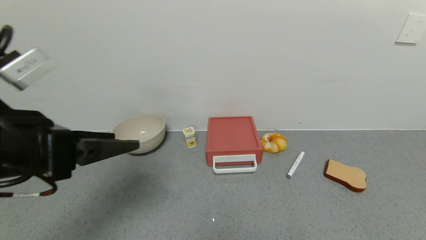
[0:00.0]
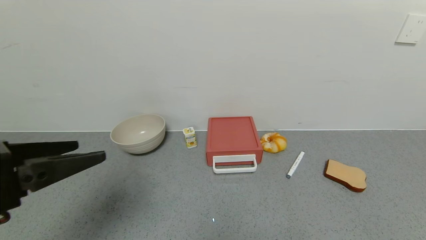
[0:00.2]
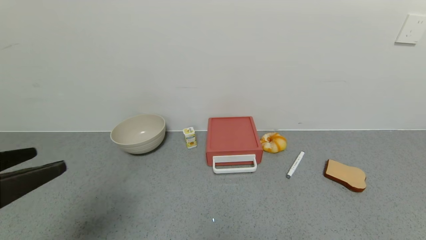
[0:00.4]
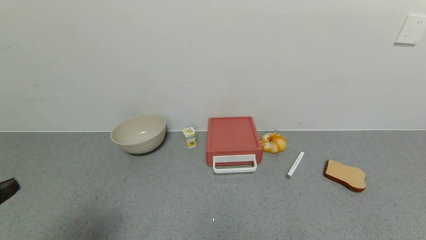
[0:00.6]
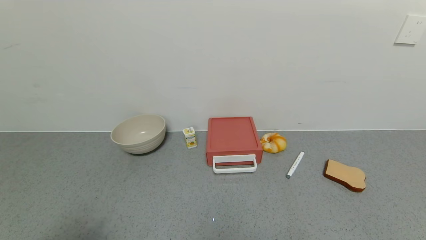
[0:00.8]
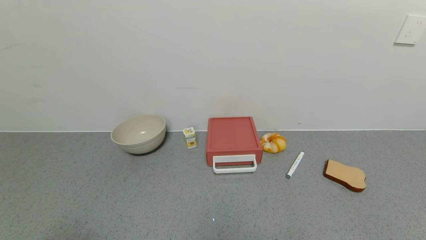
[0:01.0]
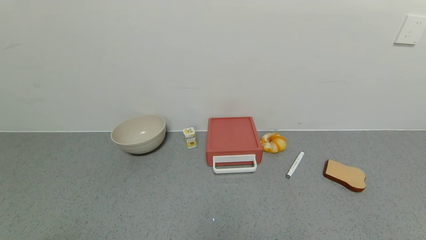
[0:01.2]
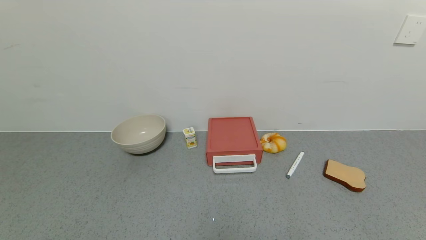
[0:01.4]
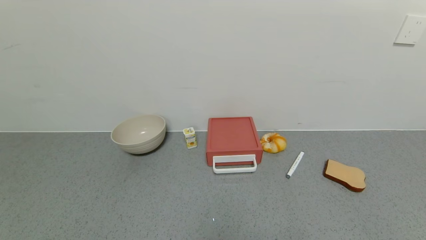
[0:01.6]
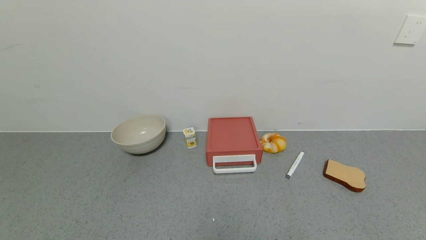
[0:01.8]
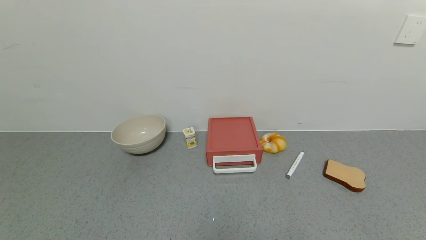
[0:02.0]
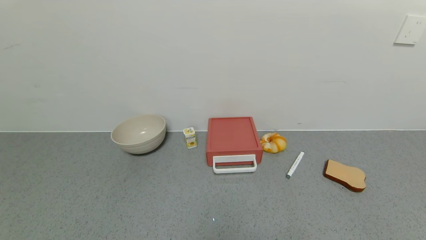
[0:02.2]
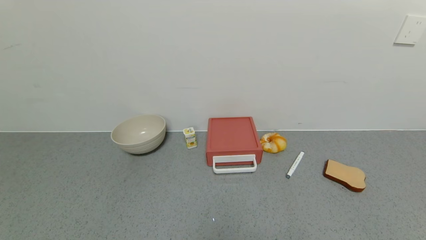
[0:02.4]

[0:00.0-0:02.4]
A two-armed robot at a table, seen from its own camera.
Task of the whole recording: use the gripper to open the drawer and close the red drawer.
0:00.0 to 0:01.2: The left gripper goes about 20 cm backward.

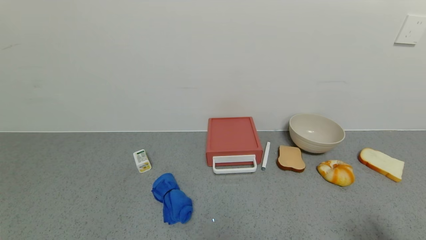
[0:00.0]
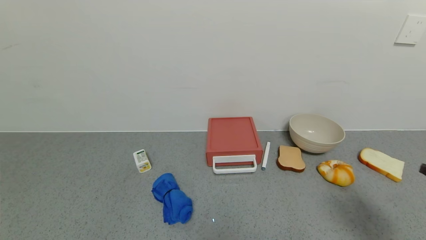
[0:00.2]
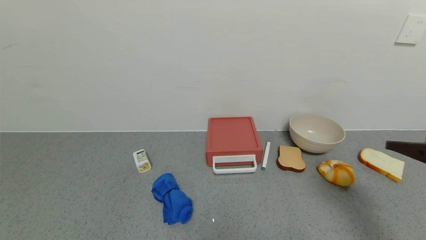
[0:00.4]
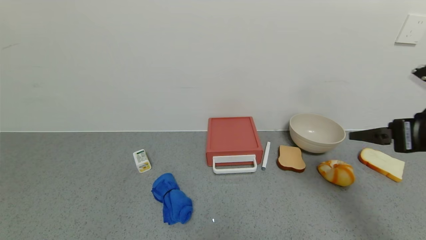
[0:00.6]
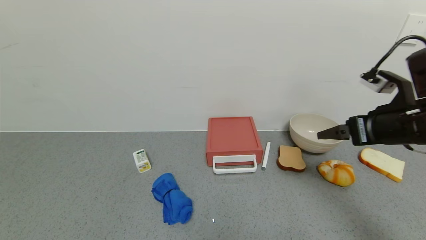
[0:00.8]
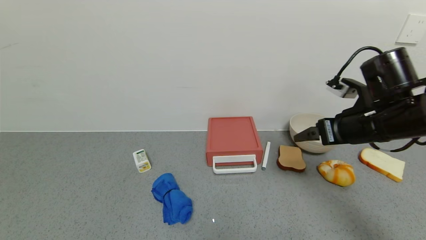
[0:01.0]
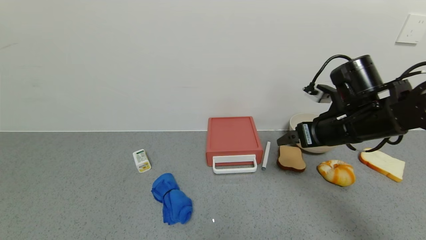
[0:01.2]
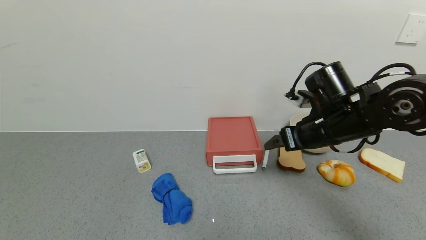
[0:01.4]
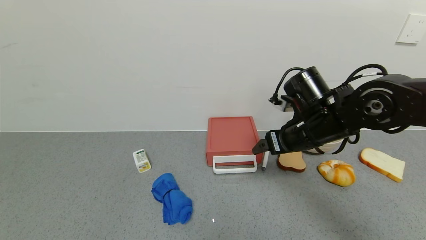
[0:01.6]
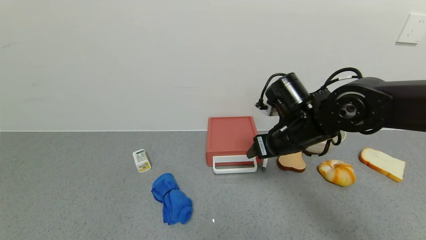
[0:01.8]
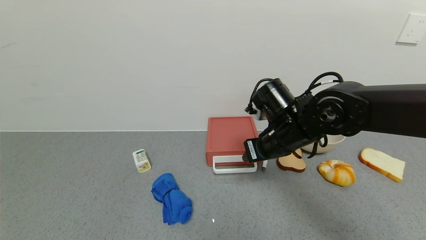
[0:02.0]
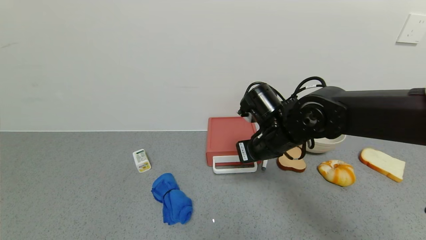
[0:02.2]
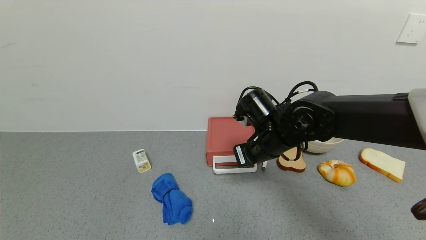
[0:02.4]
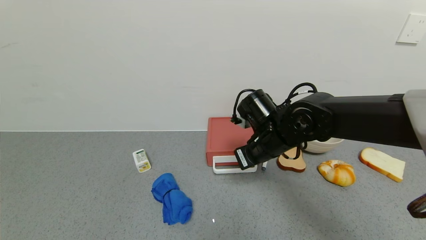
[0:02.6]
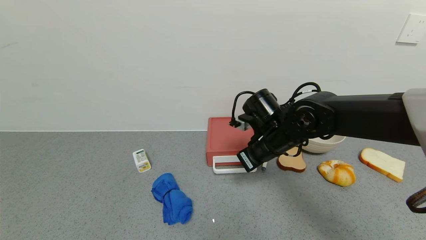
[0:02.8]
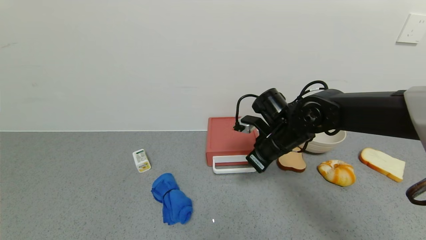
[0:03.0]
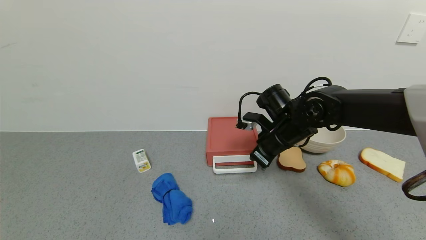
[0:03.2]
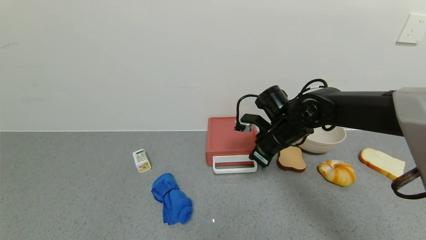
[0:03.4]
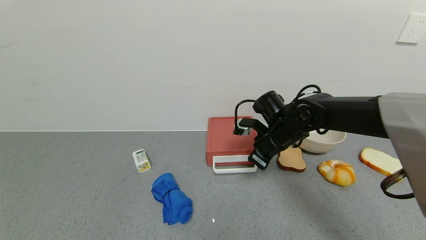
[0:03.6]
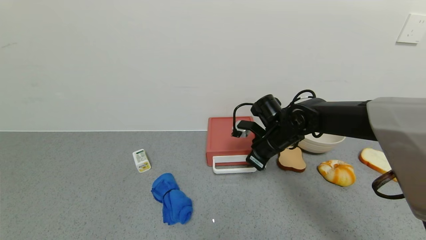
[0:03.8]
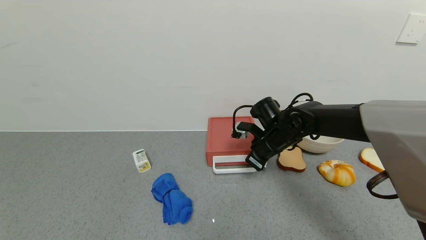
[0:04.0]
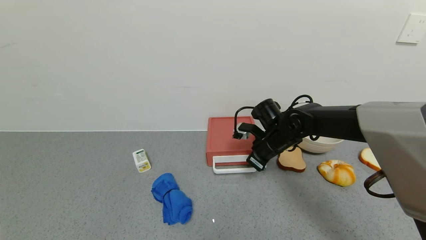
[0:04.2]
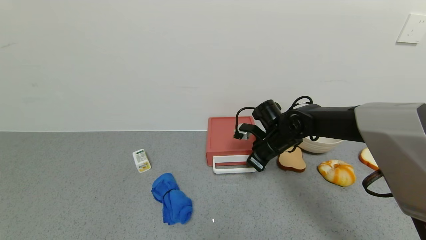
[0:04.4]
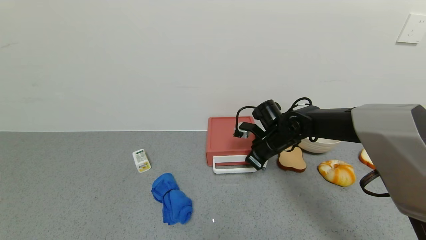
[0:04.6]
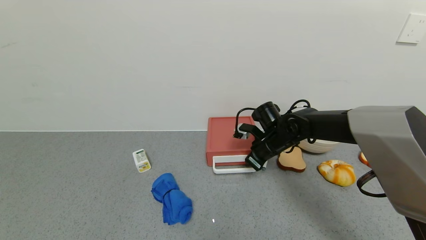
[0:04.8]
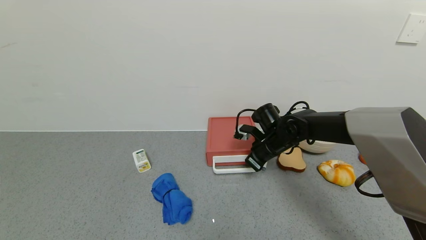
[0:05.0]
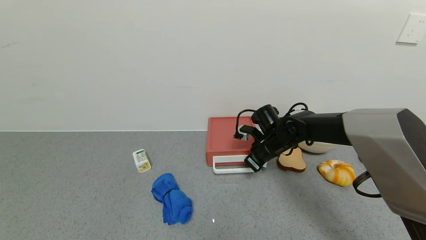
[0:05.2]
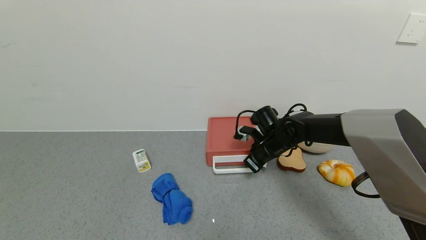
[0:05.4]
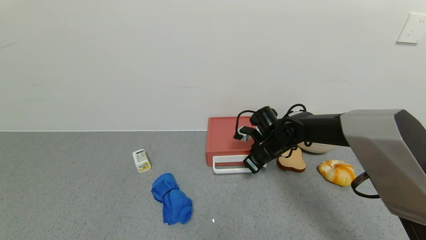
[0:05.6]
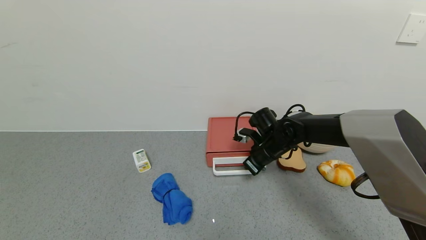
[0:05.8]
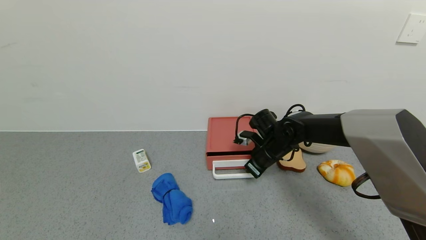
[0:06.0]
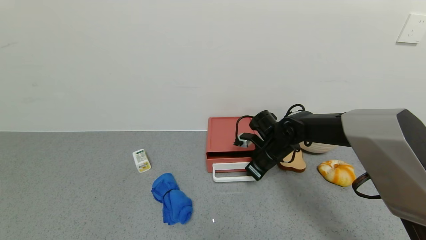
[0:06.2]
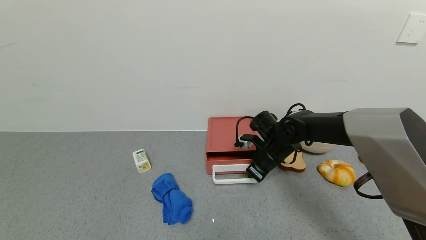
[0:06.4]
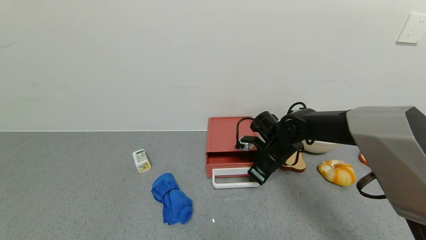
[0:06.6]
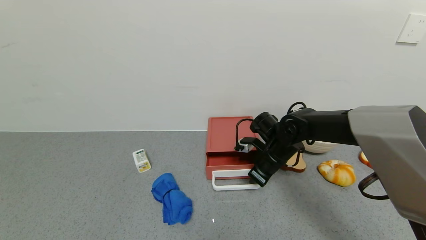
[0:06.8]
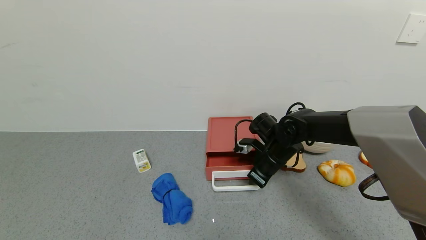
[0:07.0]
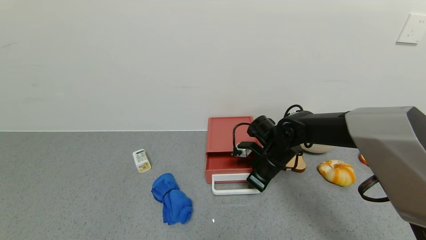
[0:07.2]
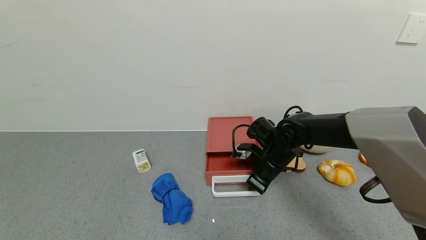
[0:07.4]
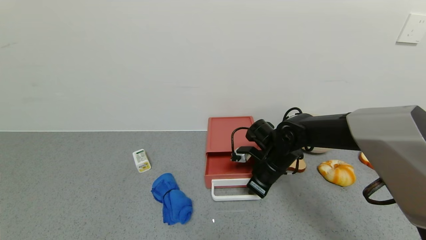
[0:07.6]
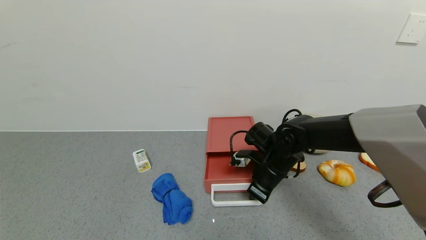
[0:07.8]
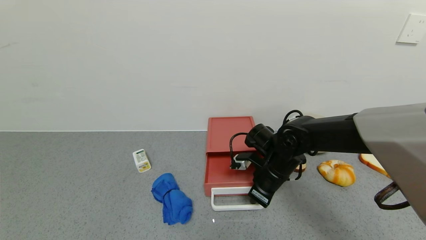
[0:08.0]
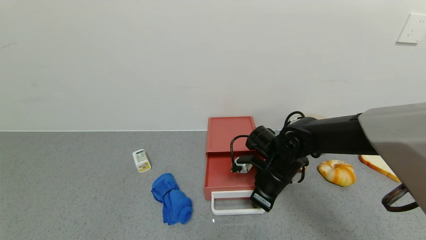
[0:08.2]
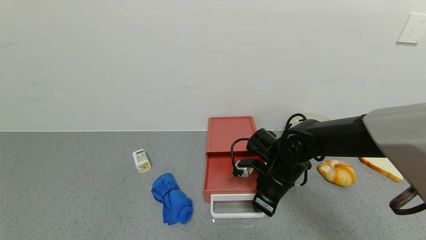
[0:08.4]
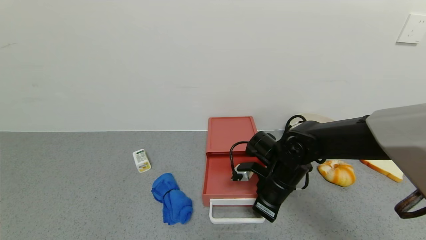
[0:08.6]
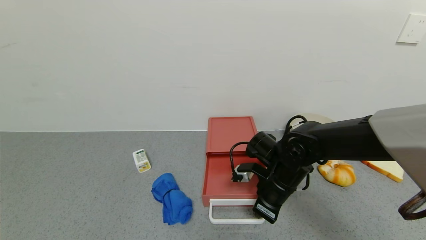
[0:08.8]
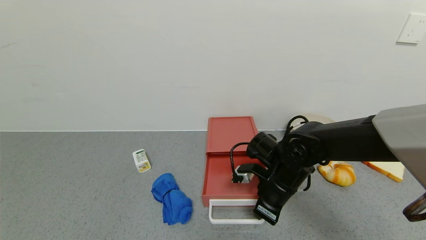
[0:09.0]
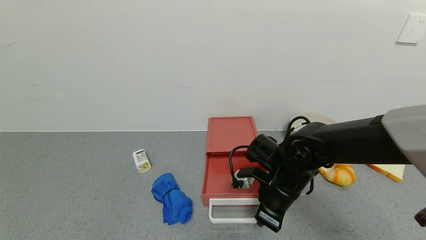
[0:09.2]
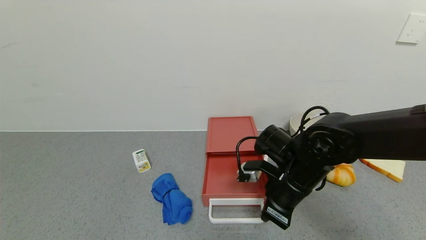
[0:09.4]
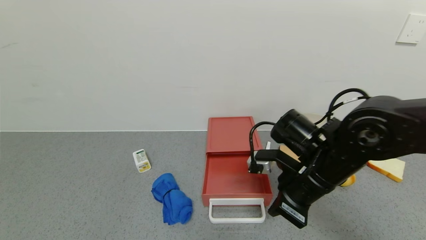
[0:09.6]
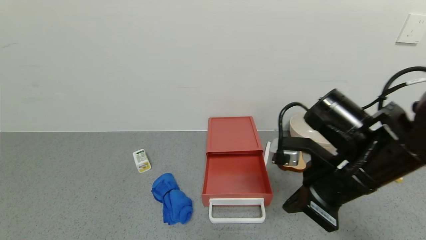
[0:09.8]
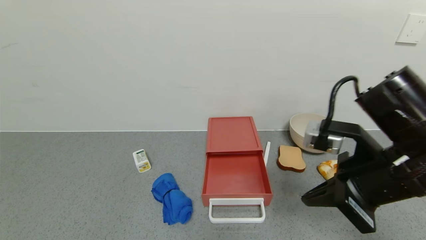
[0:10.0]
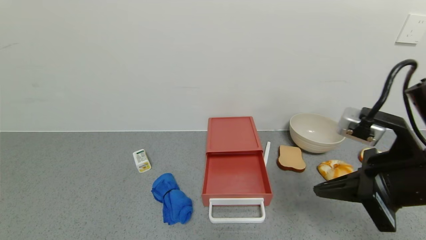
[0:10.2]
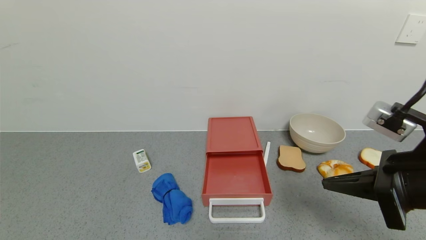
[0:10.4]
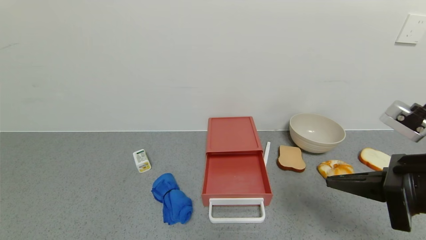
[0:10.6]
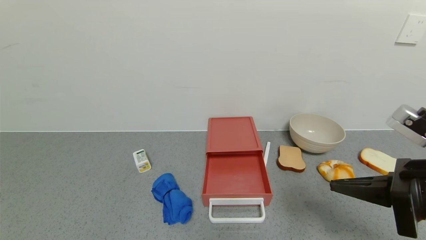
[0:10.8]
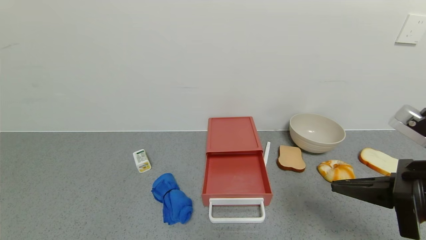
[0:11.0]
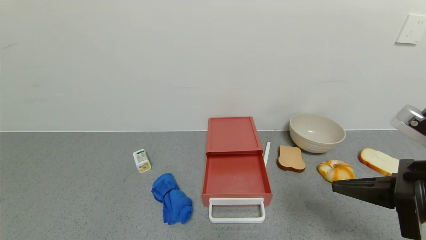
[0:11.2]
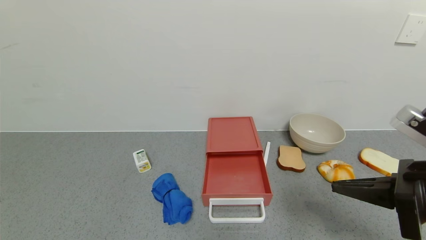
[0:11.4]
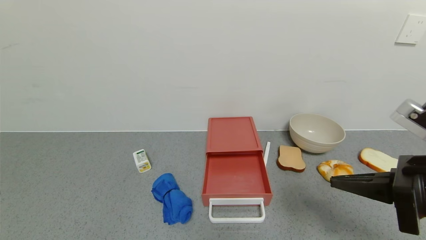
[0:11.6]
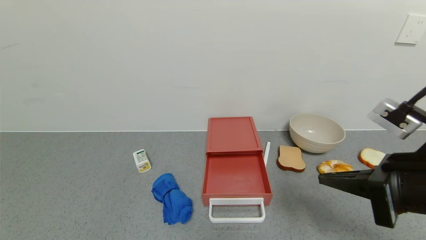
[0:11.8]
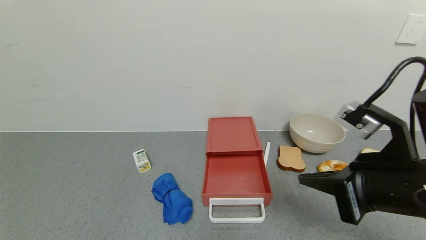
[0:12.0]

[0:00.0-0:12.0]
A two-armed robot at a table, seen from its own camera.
Task of the whole recording: use the gripper to open the drawer and close the red drawer.
Step, 0:00.0 to 0:09.4: Open the red drawer with the right gripper.
0:00.0 to 0:01.6: The right gripper goes about 35 cm forward and to the left.
0:01.6 to 0:03.0: The right gripper shifts by roughly 5 cm, and closes.
0:03.0 to 0:04.4: The right gripper ends up roughly 5 cm from where it was.
0:04.4 to 0:07.6: There are only small adjustments of the grippers.
0:07.6 to 0:09.0: The right gripper moves backward, roughly 5 cm.
0:09.0 to 0:10.4: The right gripper goes some 25 cm upward, backward and to the right.
0:10.4 to 0:12.0: The grippers stay close to where they were, moving slightly.

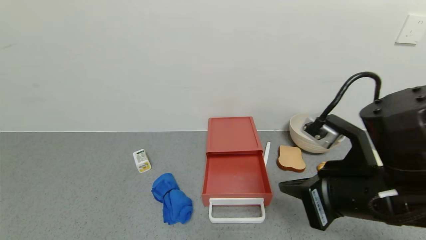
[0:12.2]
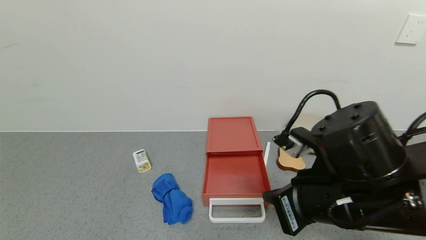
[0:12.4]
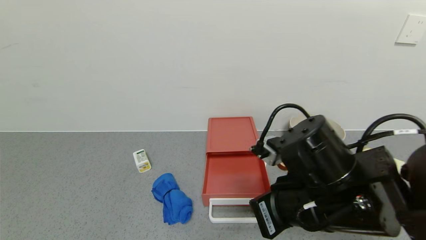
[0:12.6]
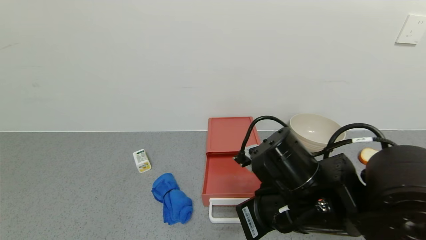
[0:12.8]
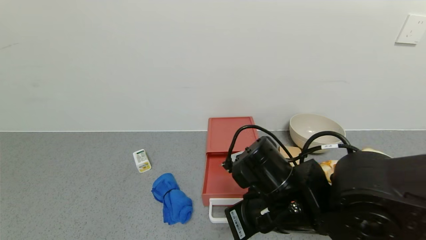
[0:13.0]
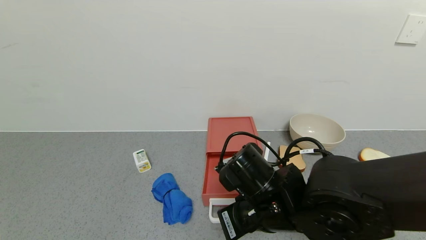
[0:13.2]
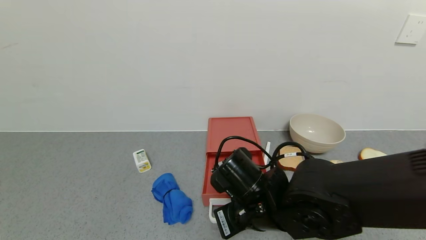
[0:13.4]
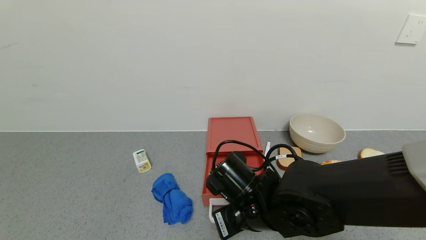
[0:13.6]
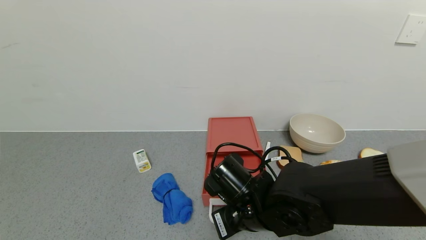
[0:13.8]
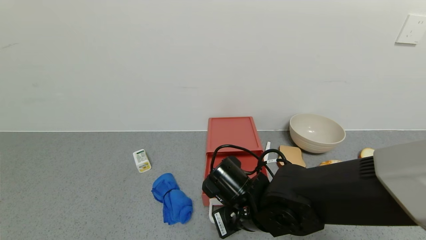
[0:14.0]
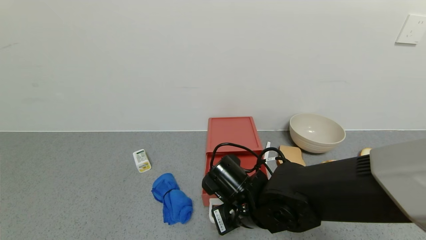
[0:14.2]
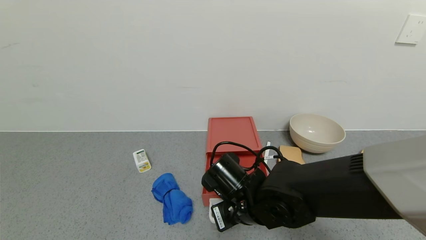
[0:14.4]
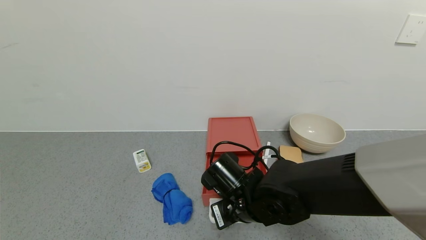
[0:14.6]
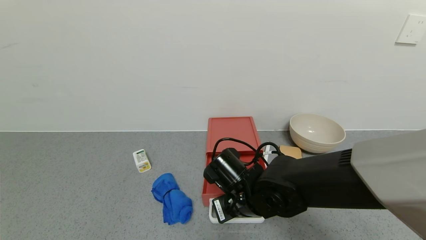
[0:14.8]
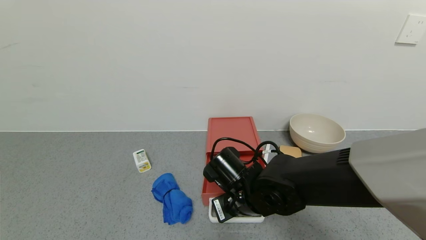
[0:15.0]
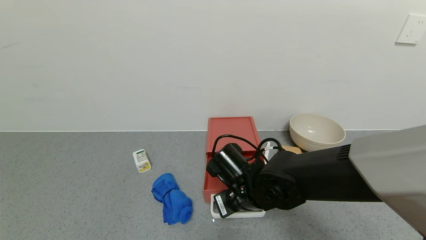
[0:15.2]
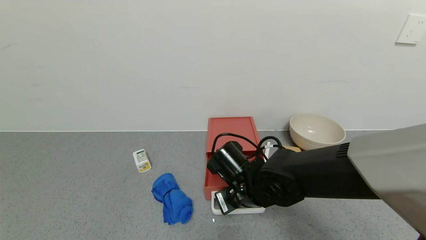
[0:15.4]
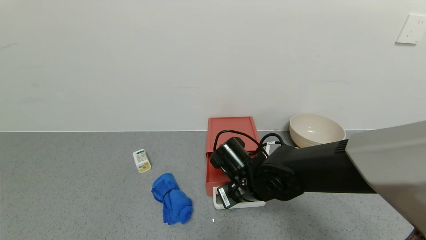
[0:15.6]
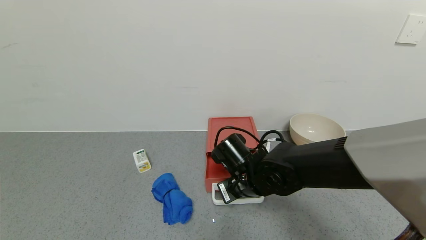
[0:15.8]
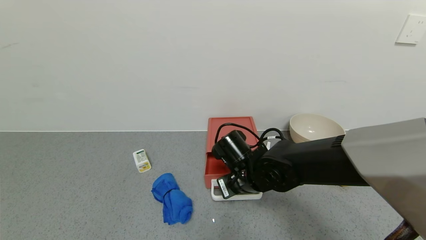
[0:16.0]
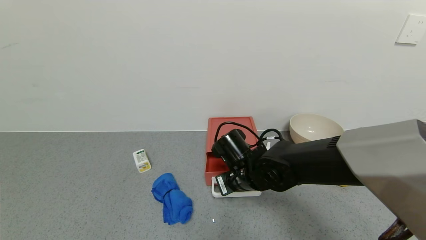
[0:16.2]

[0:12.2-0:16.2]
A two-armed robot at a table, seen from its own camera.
Task of the whole recording: use the gripper to open the drawer and close the red drawer.
0:12.2 to 0:13.6: The right gripper goes approximately 20 cm to the left, downward and forward.
0:13.6 to 0:14.8: The grippers move only a little.
0:14.8 to 0:16.2: The right gripper travels forward by some 5 cm.
